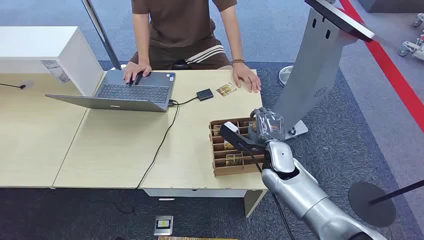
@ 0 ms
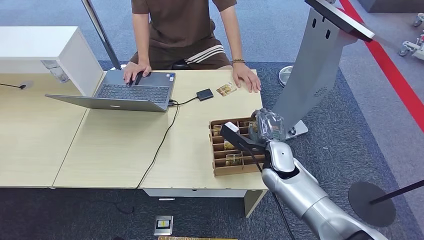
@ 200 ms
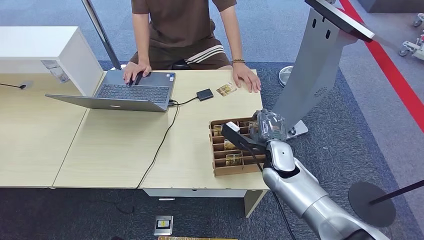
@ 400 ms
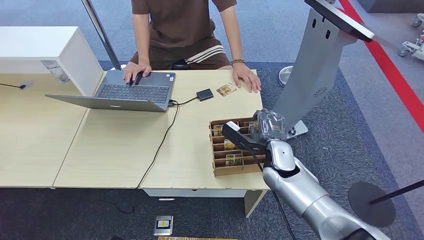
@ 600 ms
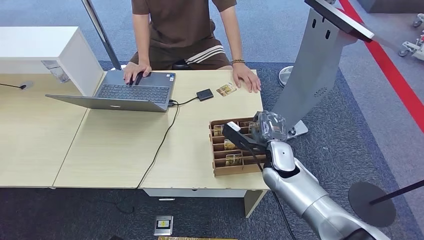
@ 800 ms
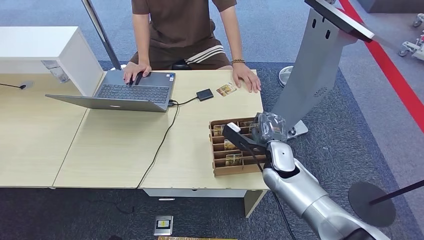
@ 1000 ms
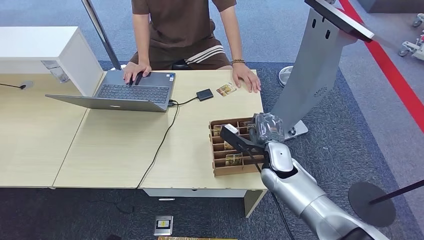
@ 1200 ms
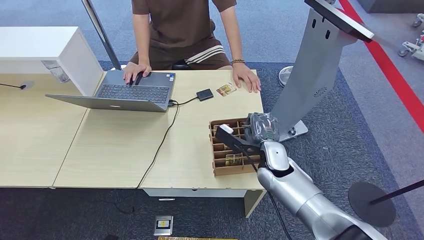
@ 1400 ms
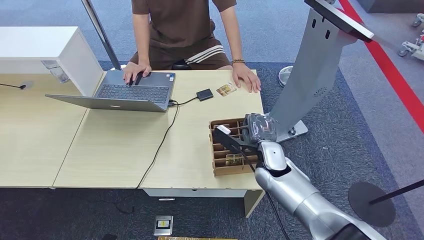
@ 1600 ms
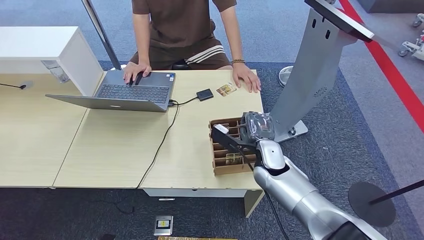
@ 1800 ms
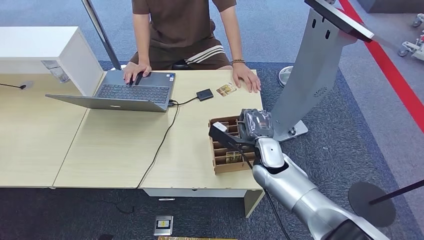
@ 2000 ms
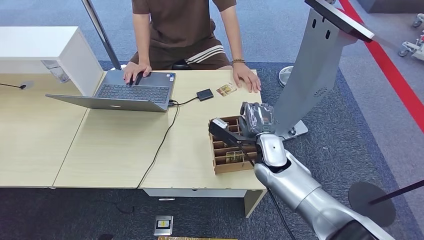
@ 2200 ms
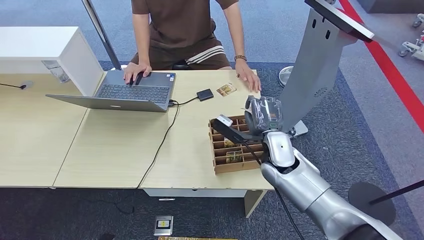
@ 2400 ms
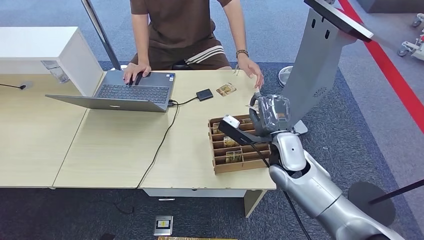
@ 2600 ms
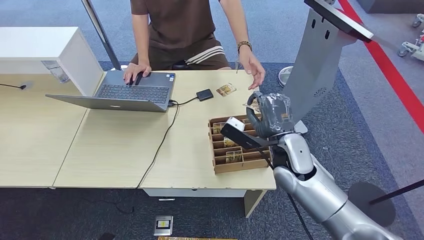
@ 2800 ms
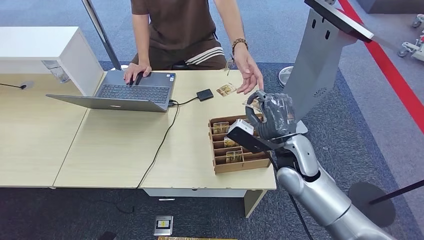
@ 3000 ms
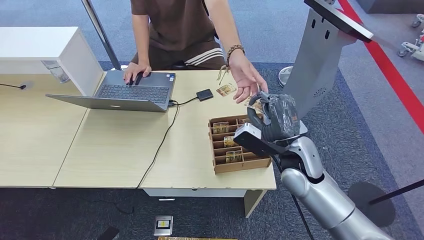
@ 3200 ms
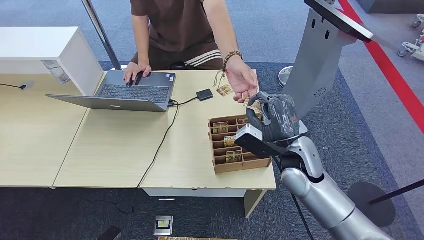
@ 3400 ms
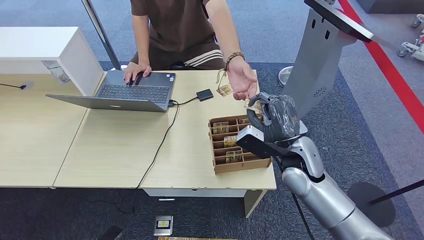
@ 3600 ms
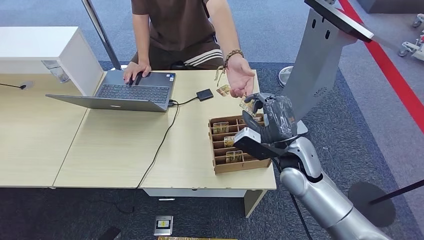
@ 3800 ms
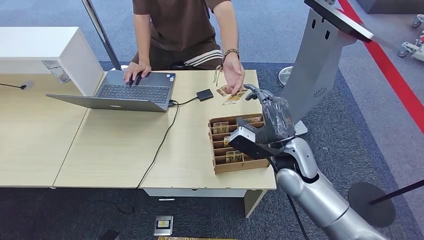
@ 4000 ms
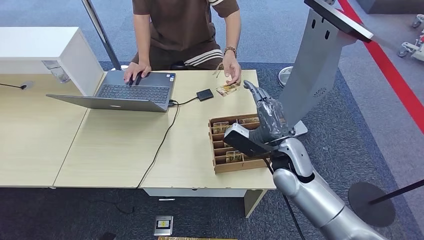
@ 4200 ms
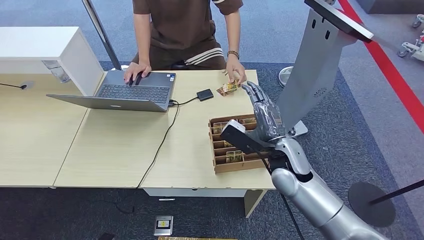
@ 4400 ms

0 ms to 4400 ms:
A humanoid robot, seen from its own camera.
Step, 0 ms to 2400 ms: Pick up the key card from the card box.
Step, 2600 ms to 4400 ms: Hand the key card to the target.
1400 ms to 3000 ms: The right hand goes roughly 5 cm upward.
3000 ms to 4400 ms: The hands stay close to where they were, moving slightly.

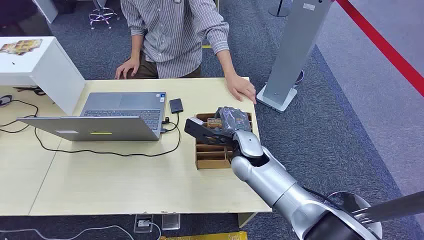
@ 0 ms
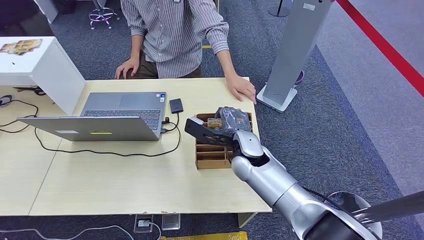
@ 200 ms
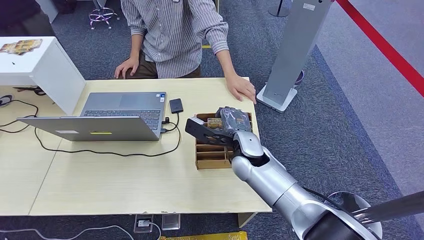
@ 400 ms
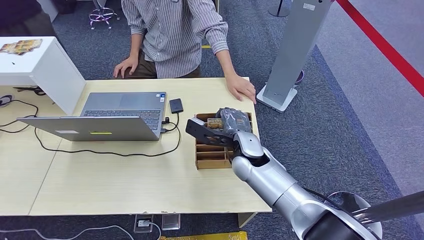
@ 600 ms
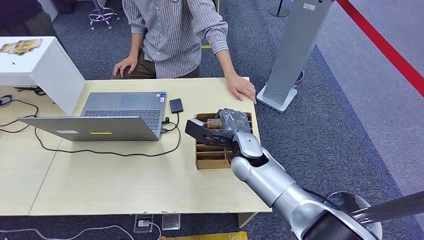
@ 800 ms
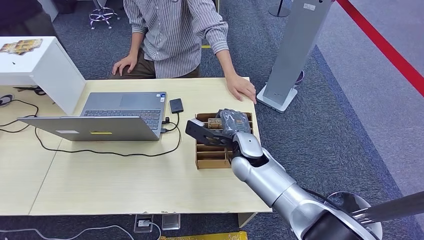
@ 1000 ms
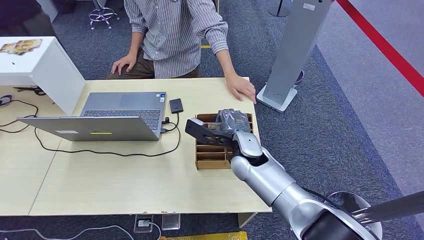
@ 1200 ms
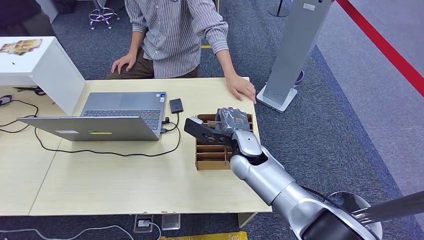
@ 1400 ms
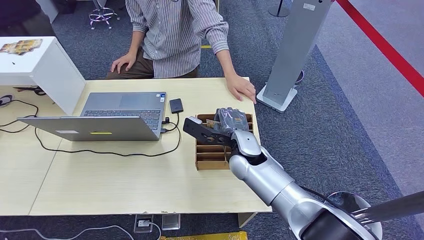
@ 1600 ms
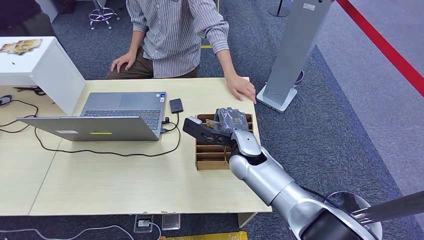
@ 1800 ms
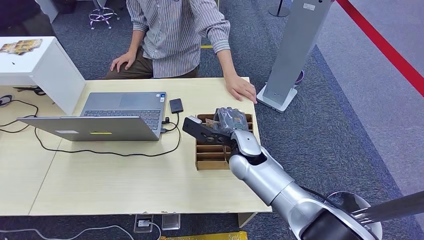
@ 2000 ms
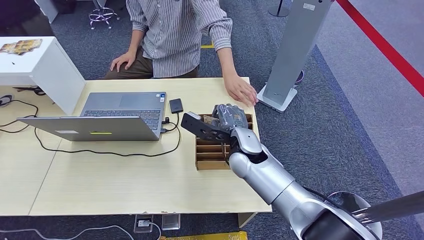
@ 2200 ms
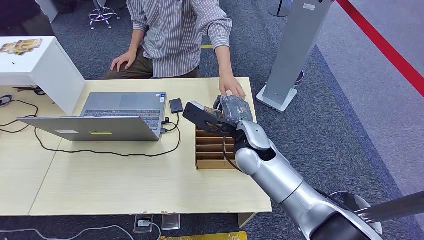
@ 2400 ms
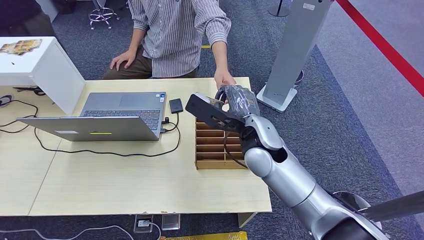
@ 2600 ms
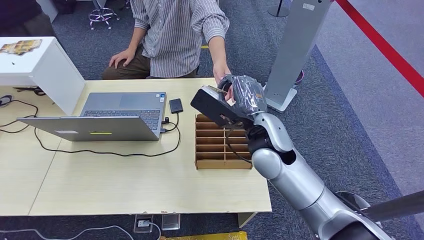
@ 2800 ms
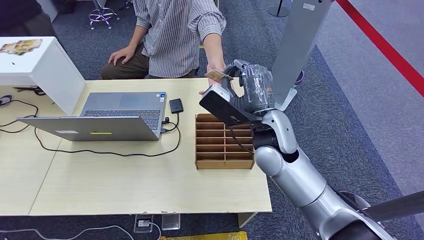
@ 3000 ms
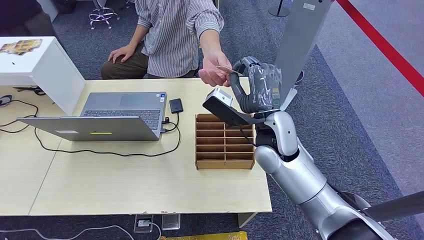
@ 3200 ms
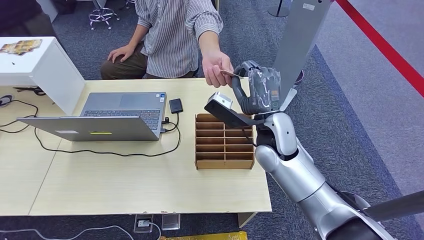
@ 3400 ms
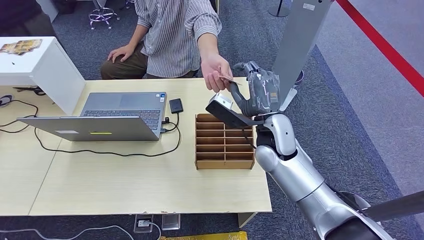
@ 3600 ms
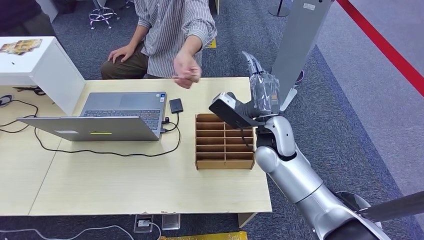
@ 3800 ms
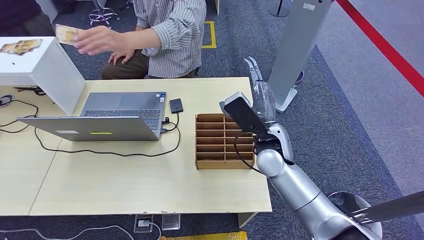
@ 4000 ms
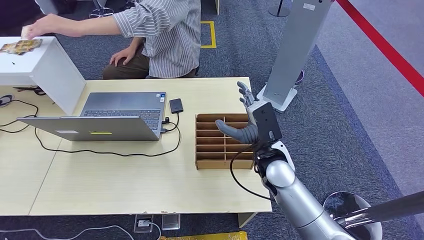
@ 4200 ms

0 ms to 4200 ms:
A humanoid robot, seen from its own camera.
Step, 0 ms to 2400 ms: Pick up the key card from the card box.
Step, 3400 ms to 4200 ms: Hand the key card to the target.
1400 ms to 2800 ms: The right hand goes some 10 cm upward.
2800 ms to 4200 ms: The right hand travels downward by roughly 10 cm.

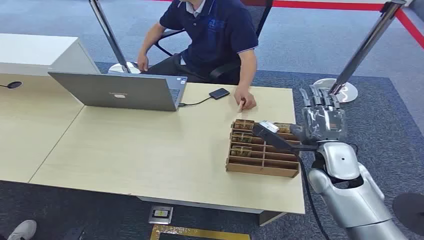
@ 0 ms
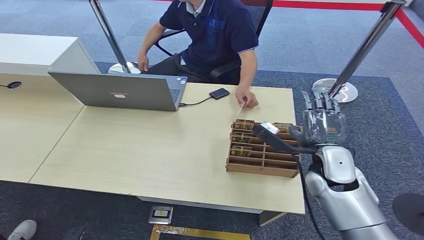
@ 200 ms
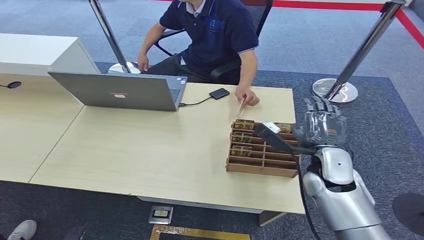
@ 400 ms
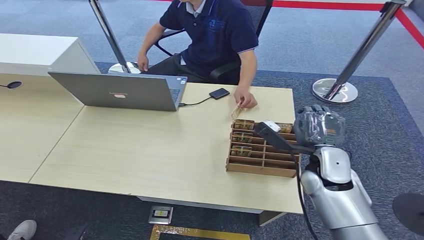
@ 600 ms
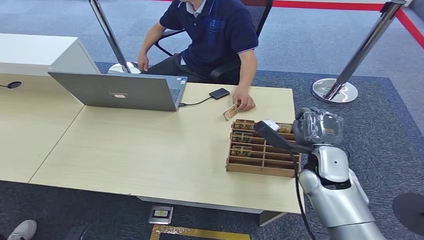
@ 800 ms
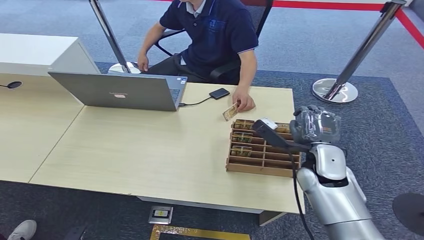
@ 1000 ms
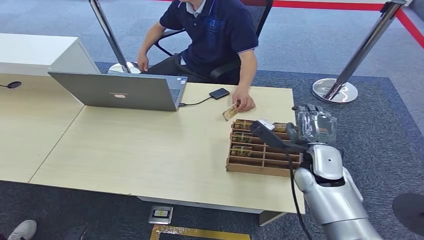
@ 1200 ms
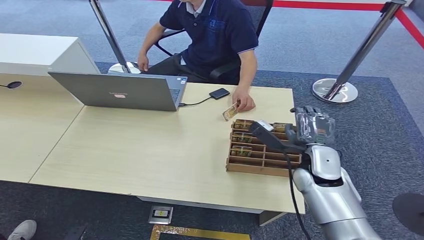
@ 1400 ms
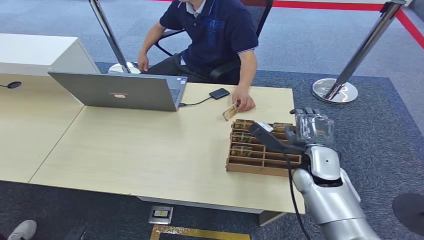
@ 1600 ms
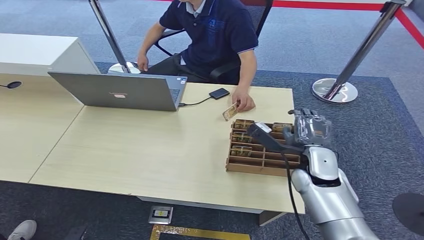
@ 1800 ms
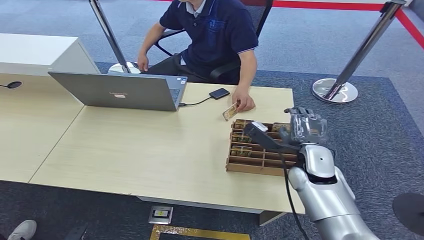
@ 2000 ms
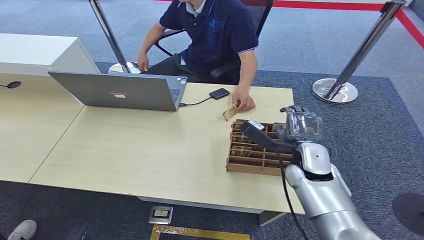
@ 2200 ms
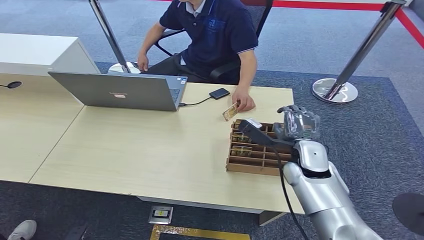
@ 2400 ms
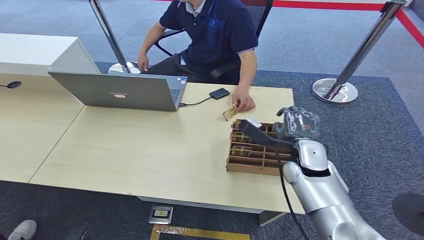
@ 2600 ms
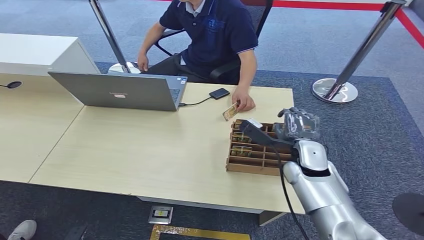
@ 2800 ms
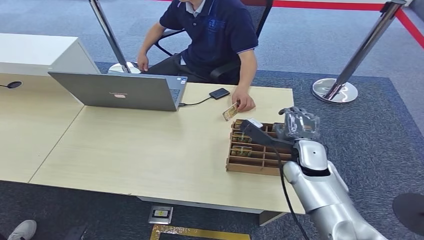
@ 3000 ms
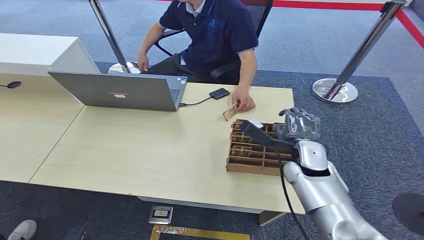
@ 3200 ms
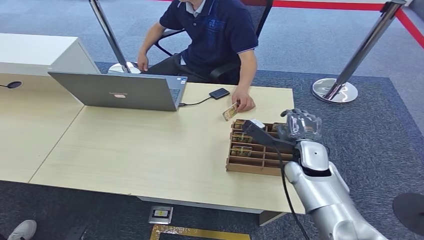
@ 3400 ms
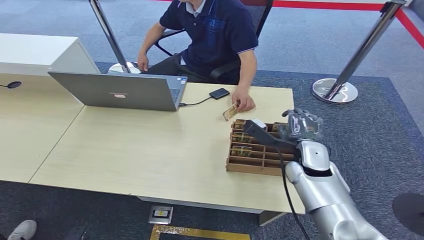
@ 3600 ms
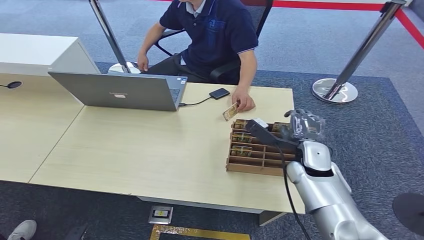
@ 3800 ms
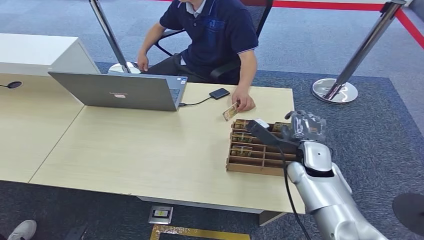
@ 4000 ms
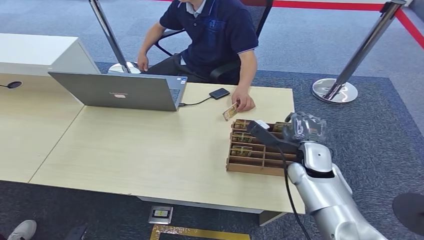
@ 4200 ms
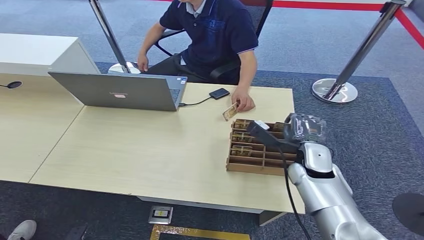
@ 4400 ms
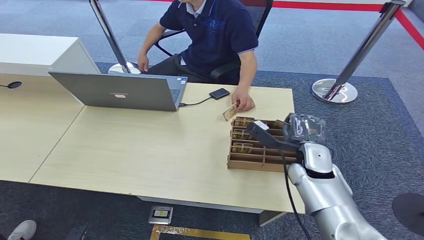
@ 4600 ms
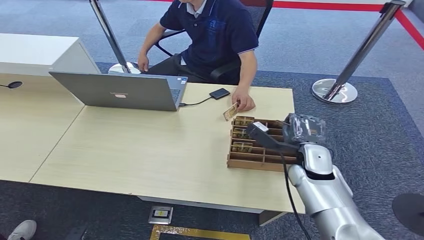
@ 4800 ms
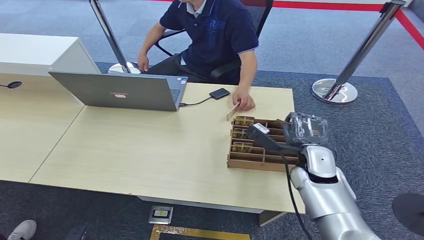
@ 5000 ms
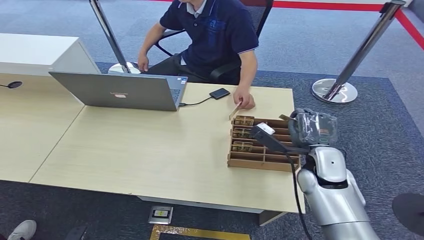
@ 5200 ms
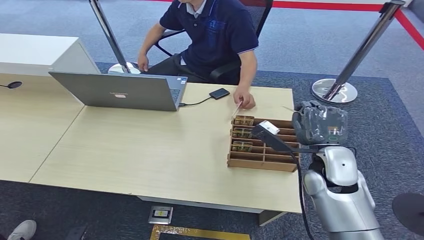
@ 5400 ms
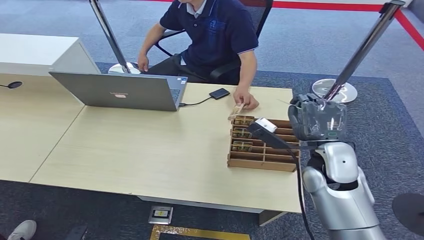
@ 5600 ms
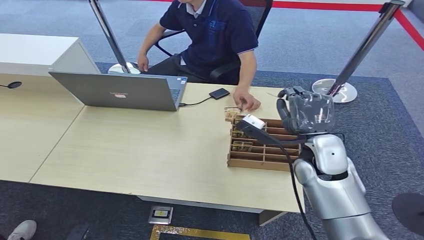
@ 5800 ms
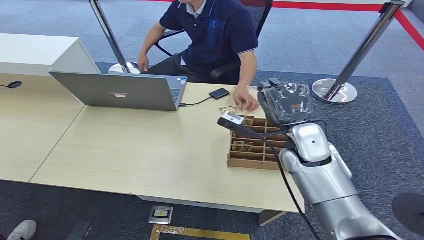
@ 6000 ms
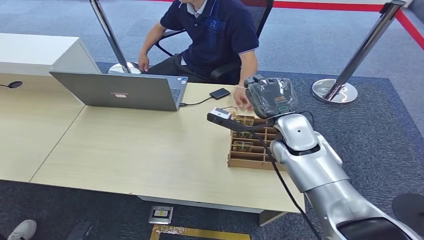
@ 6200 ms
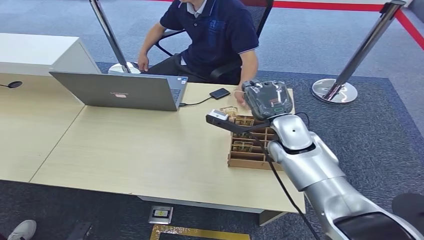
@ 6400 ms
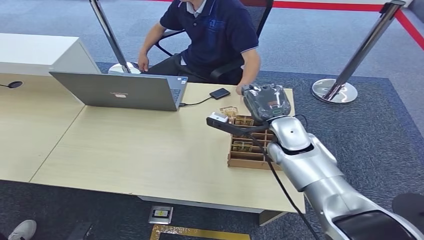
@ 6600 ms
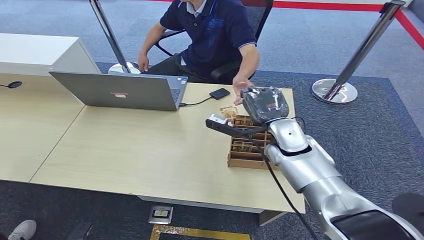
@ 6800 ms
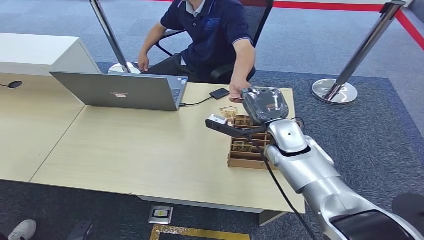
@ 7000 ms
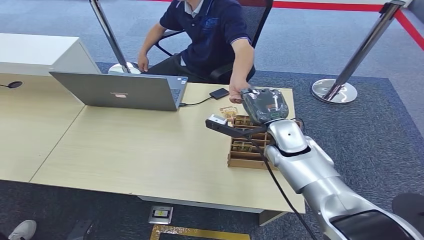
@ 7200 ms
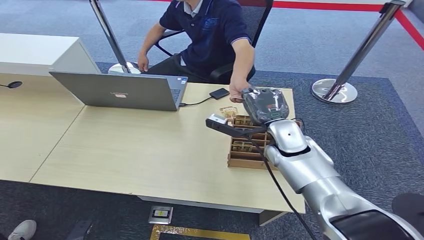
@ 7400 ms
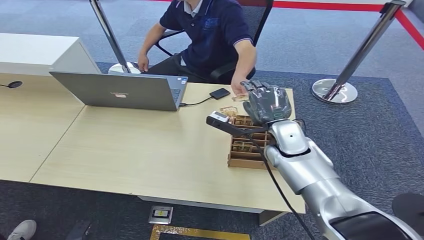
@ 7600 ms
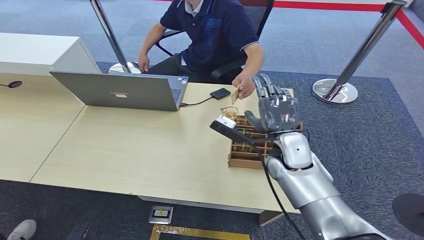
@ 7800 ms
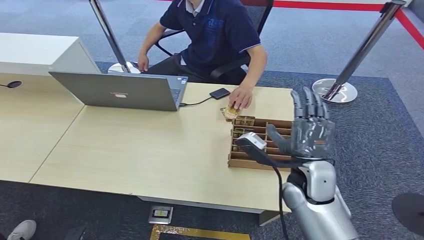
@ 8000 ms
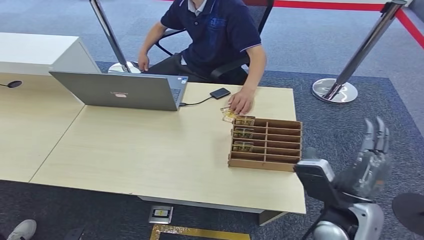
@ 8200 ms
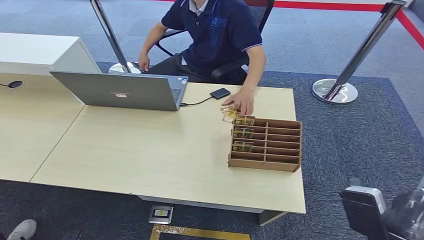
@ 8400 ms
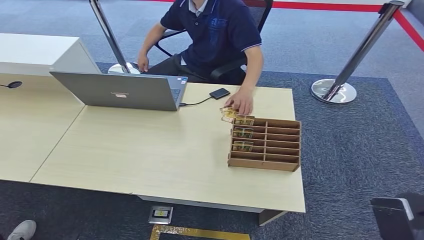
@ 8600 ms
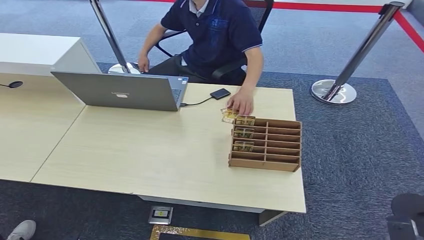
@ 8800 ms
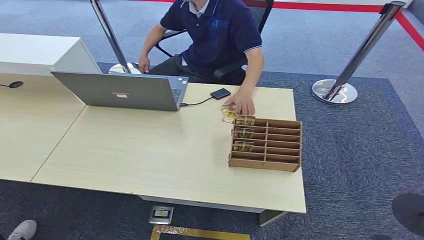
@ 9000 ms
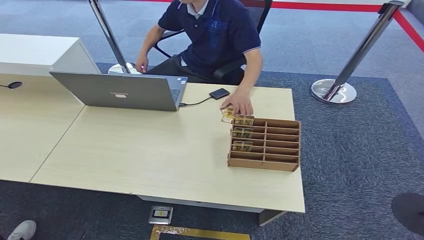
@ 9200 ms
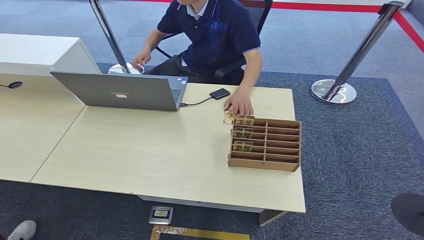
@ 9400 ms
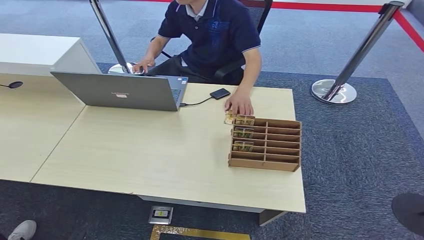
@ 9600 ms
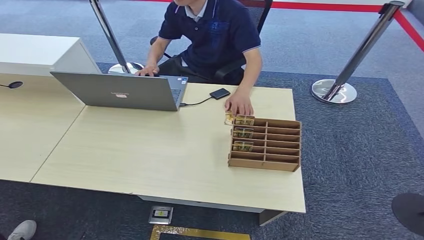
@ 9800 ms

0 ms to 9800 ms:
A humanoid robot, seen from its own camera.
Step, 0 ms to 5600 ms: Pick up the key card from the card box.
Step, 5800 ms to 9800 ms: Hand the key card to the target.
1400 ms to 4200 ms: The hands move only a little.
4200 ms to 5600 ms: The right hand heads upward, covering some 5 cm.
5600 ms to 7000 ms: The right hand heads forward, covering about 5 cm.
7000 ms to 8400 ms: The right hand travels backward by some 25 cm.
8400 ms to 9800 ms: The right hand goes about 25 cm downward.
